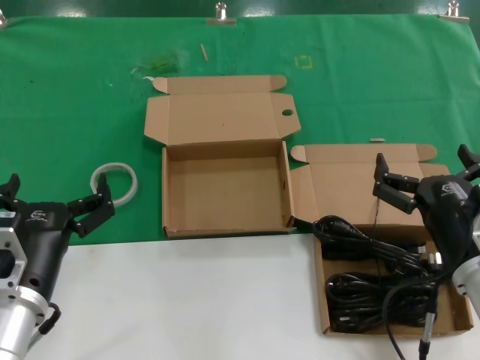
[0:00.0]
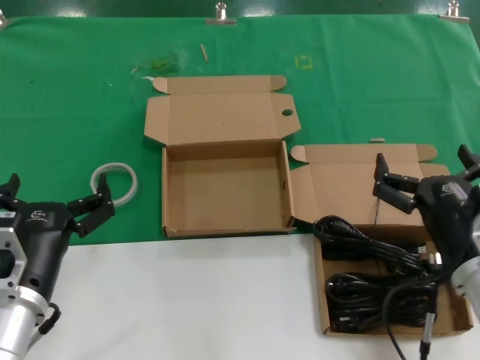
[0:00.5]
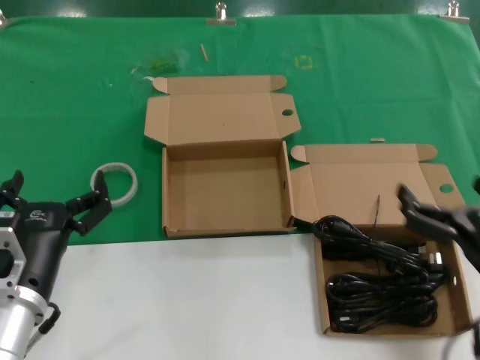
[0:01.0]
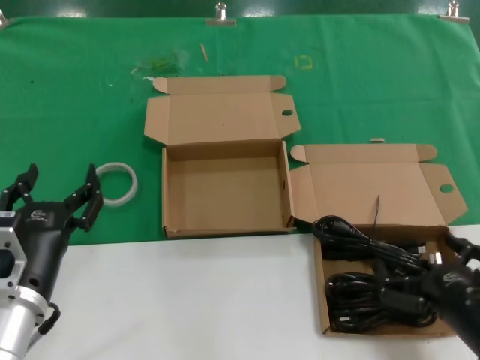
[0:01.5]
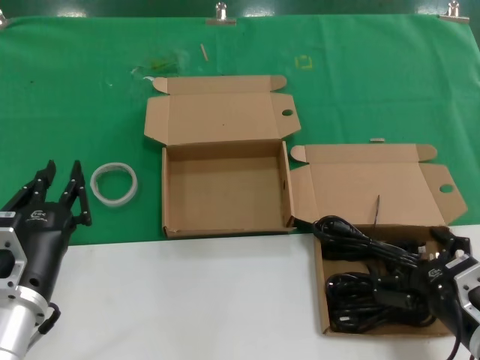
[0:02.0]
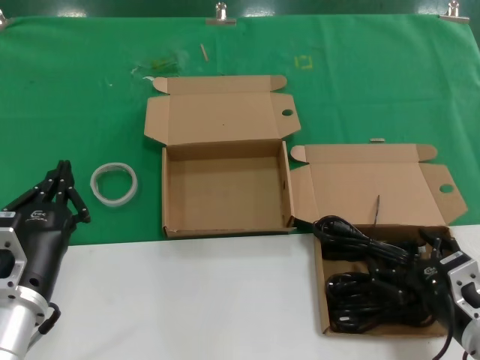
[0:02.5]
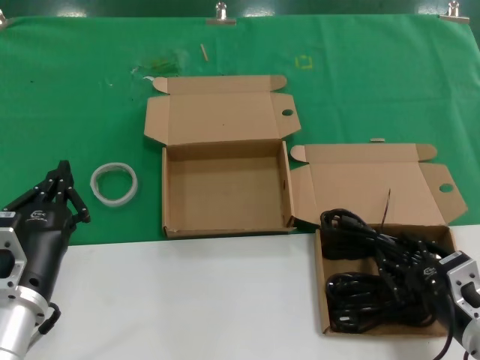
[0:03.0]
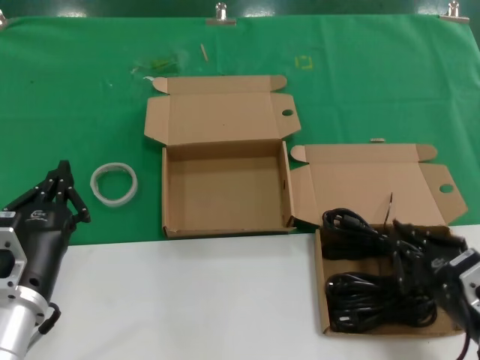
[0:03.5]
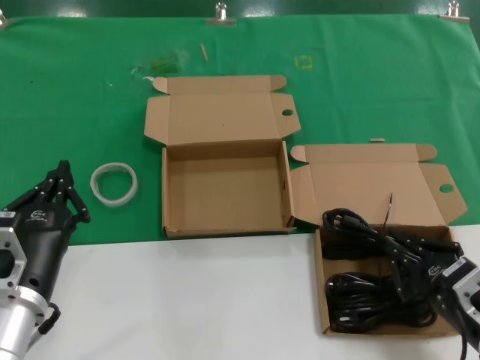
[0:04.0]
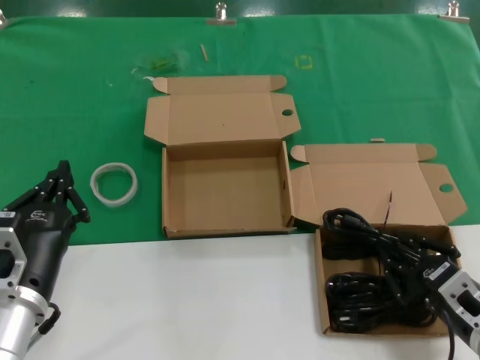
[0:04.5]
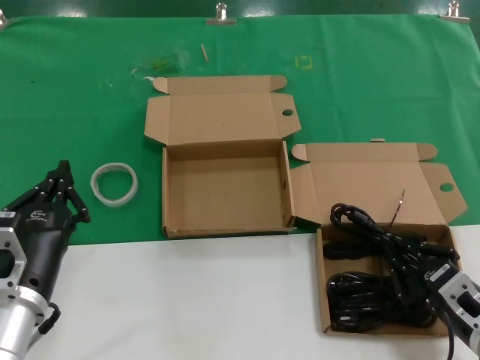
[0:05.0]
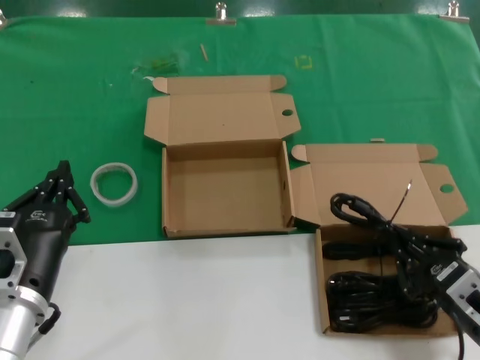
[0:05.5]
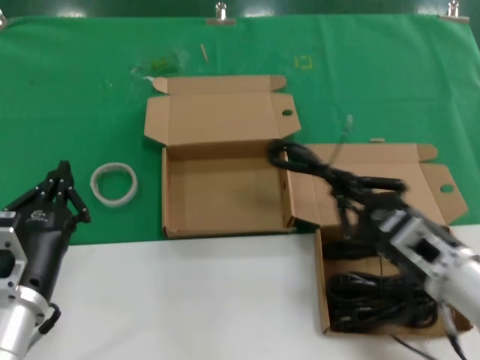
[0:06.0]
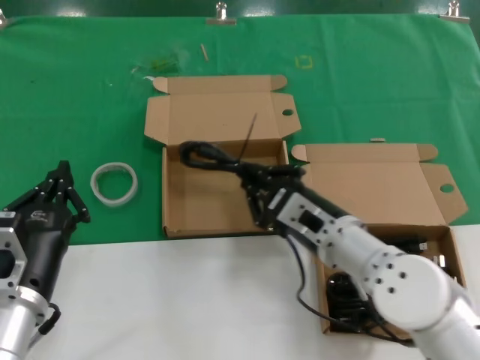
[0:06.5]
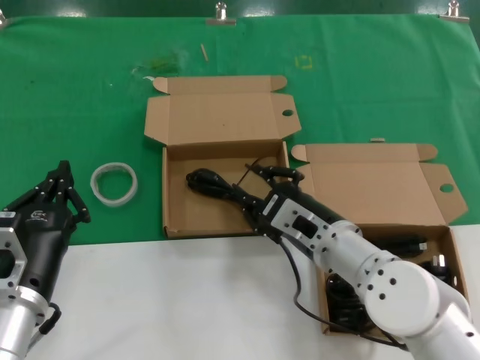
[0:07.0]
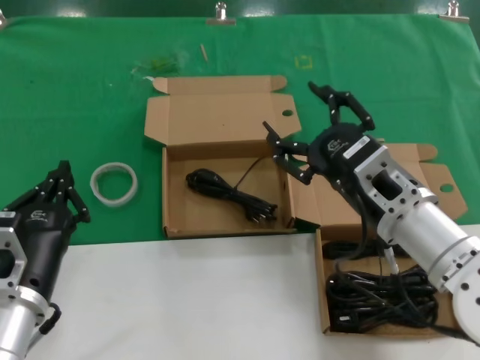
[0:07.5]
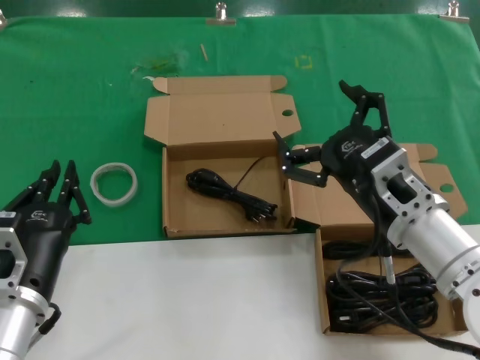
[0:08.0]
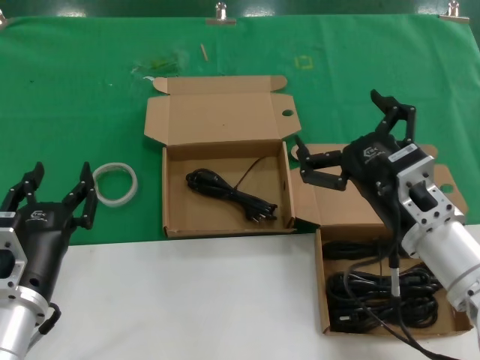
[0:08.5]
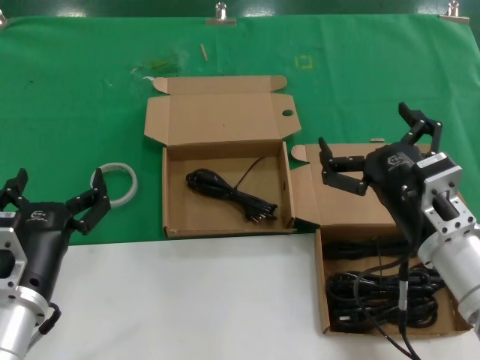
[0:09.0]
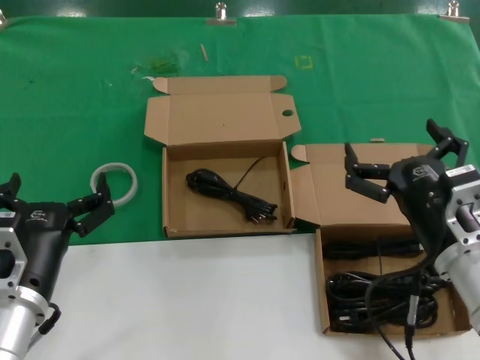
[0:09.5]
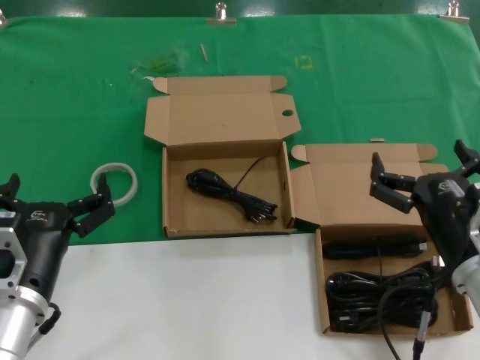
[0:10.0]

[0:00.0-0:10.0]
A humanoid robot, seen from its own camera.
Task of the whole recording: Pick up the power cord from the box containing it and place it in another box.
Step, 0:00.0 to 0:05.0: Grasp the data cable.
Step, 0:05.5 to 0:07.0: Place the data cable in the another box.
0:00.0 to 0:02.0: The right hand is displaced downward by some 5 cm.
0:02.0 to 0:04.0: The hands make only small movements.
0:04.0 to 0:06.0: The right hand moves forward, roughly 5 cm.
0:06.0 to 0:08.0: The right hand moves to the left and upward, about 10 cm.
0:08.0 to 0:10.0: The right hand goes about 10 cm to the right and downward.
